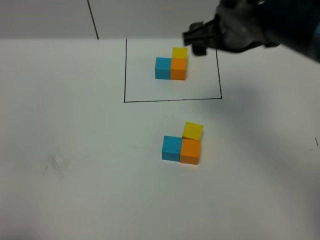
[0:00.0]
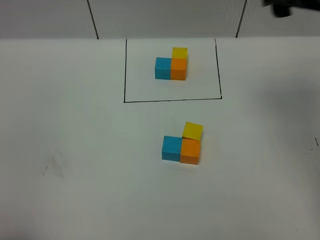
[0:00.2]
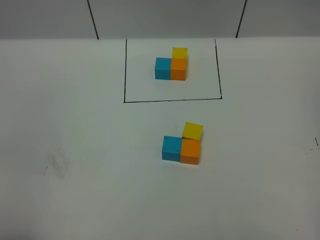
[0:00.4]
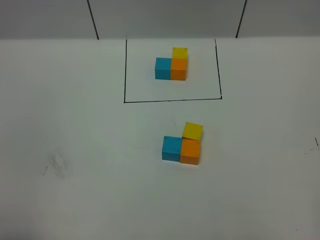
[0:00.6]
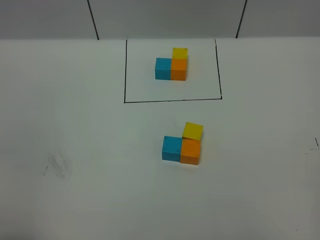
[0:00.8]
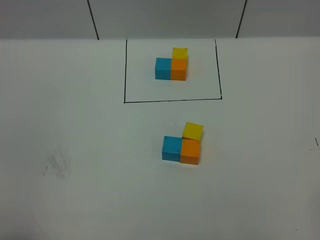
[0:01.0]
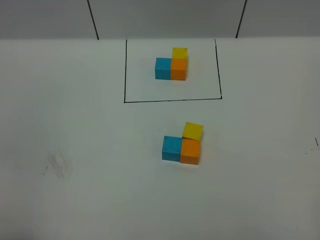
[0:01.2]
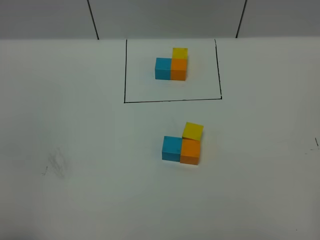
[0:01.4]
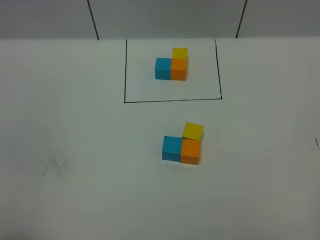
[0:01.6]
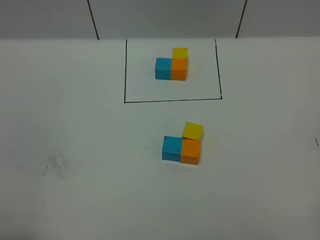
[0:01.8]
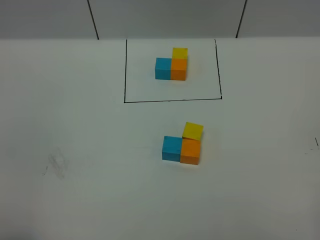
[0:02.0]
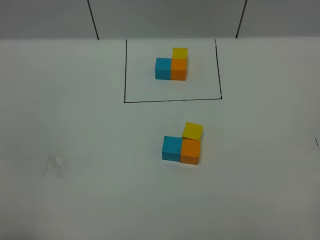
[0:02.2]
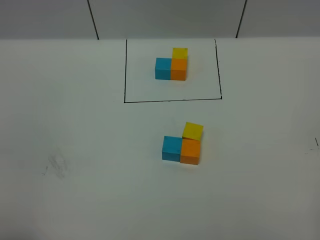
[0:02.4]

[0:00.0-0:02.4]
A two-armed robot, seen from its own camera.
Task of the whole recording: According to the building block template in front, assemble the scattered blocks together.
0:00.0 to 0:01.2: The right gripper shifts some 40 cm backward and to the right.

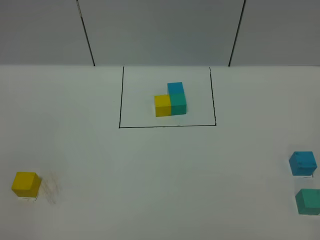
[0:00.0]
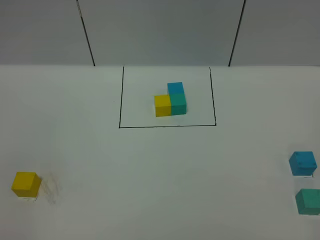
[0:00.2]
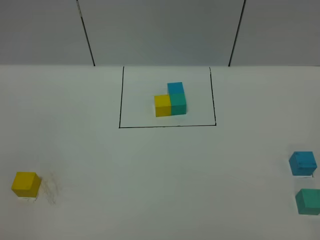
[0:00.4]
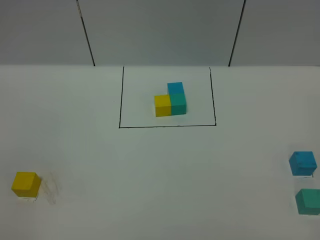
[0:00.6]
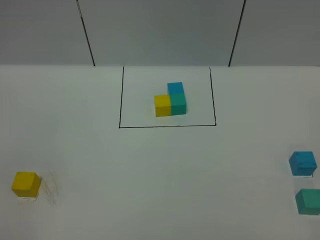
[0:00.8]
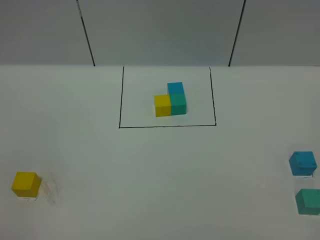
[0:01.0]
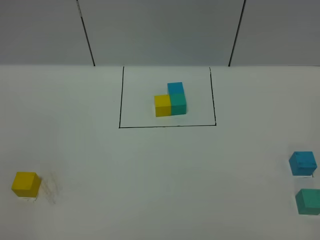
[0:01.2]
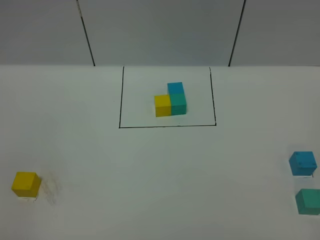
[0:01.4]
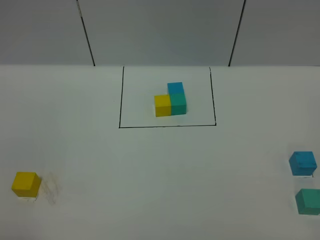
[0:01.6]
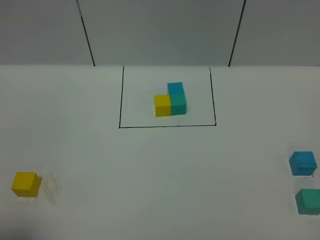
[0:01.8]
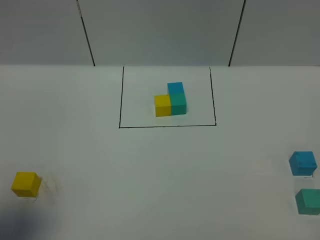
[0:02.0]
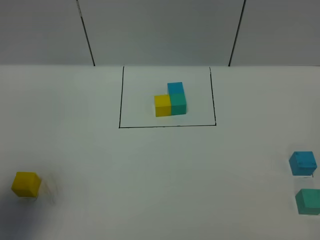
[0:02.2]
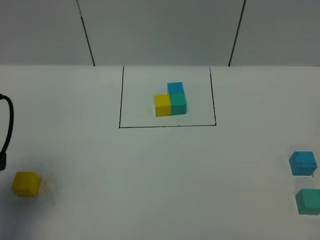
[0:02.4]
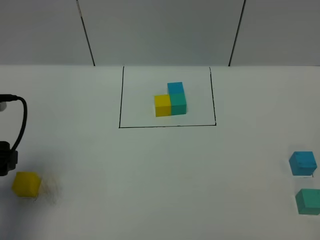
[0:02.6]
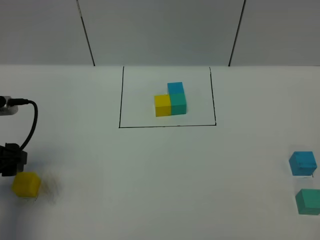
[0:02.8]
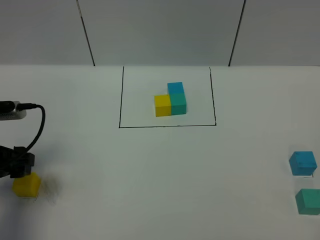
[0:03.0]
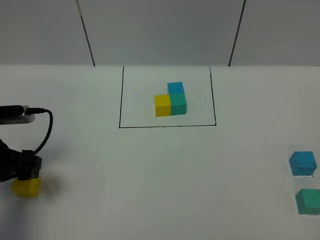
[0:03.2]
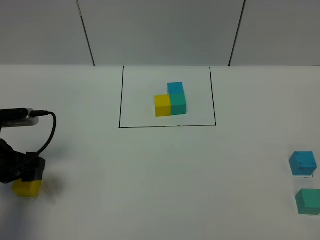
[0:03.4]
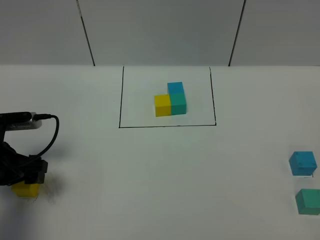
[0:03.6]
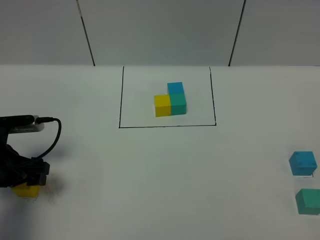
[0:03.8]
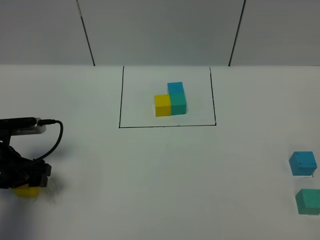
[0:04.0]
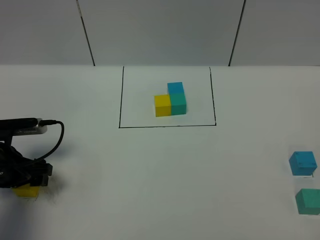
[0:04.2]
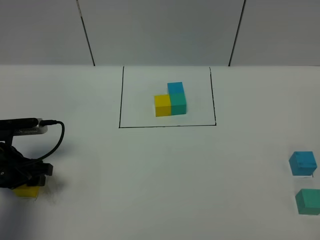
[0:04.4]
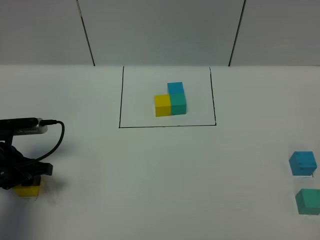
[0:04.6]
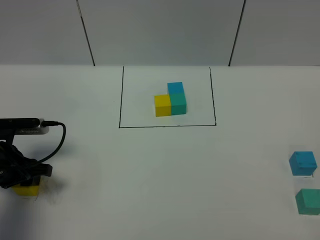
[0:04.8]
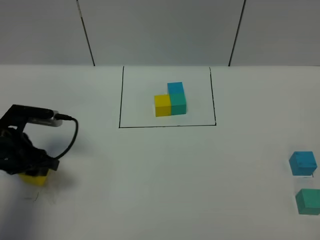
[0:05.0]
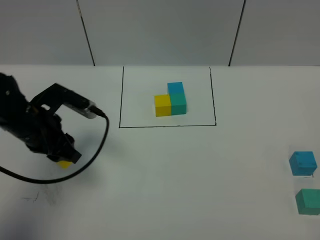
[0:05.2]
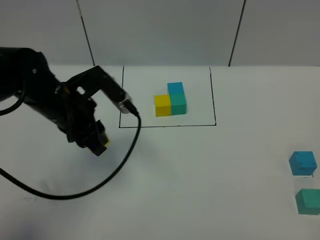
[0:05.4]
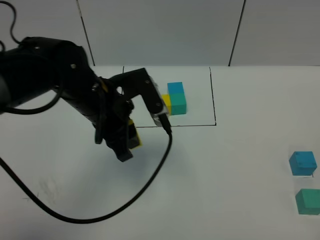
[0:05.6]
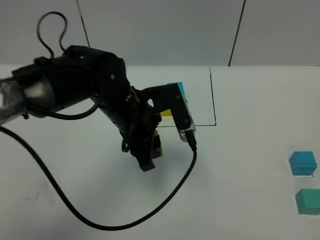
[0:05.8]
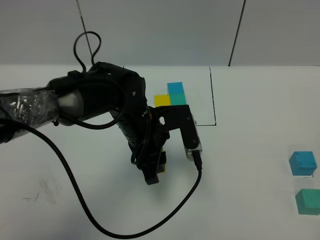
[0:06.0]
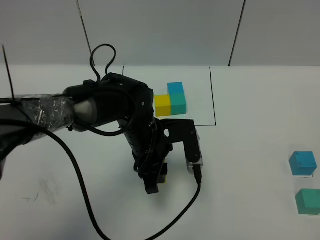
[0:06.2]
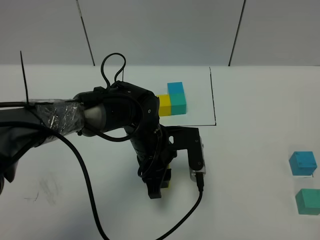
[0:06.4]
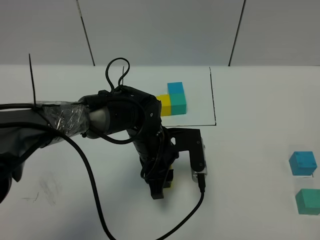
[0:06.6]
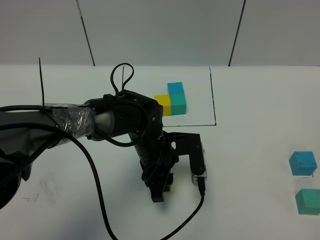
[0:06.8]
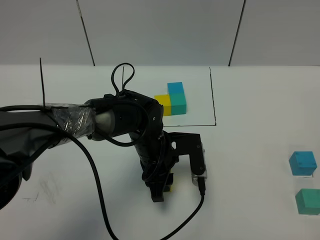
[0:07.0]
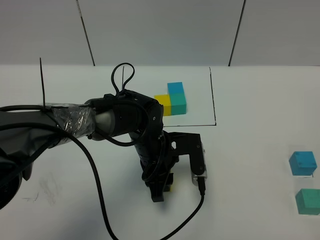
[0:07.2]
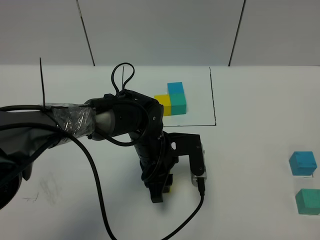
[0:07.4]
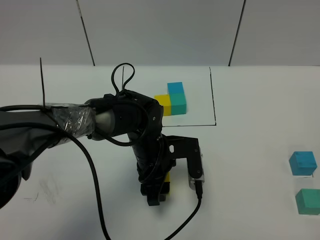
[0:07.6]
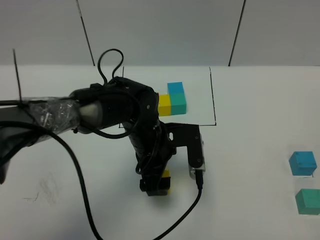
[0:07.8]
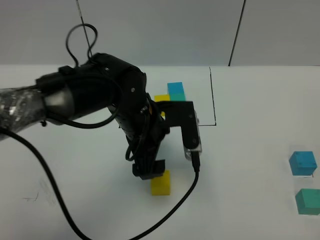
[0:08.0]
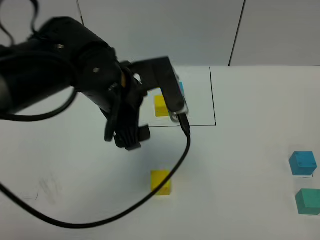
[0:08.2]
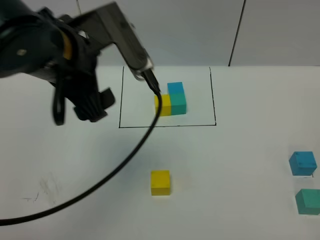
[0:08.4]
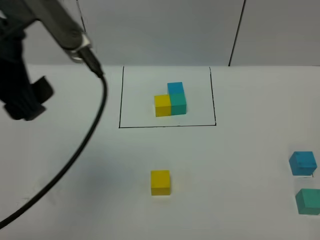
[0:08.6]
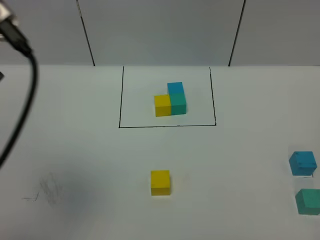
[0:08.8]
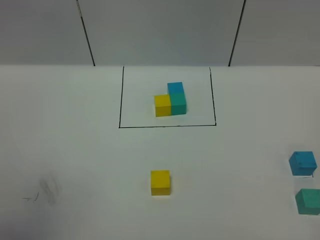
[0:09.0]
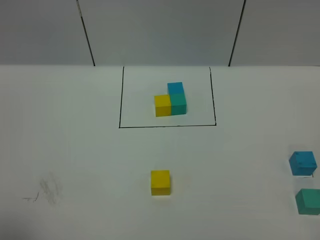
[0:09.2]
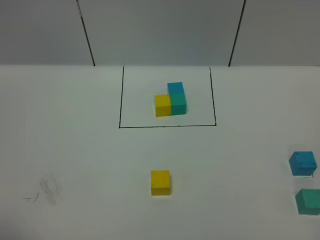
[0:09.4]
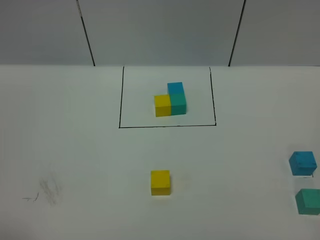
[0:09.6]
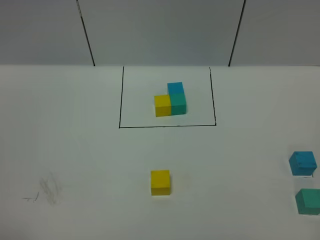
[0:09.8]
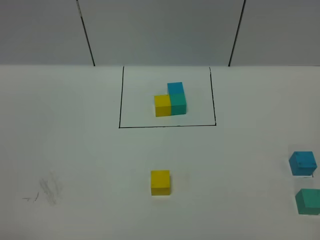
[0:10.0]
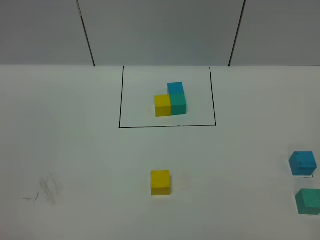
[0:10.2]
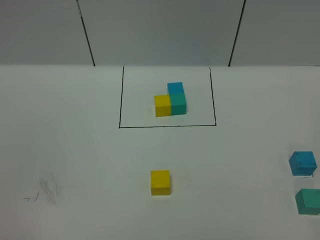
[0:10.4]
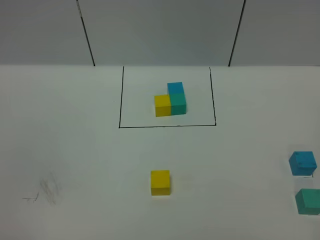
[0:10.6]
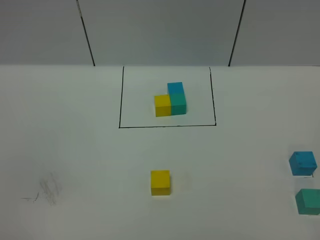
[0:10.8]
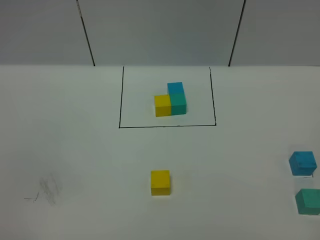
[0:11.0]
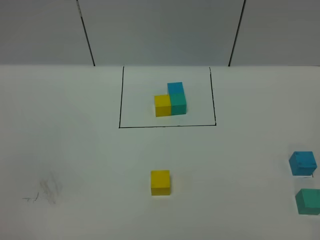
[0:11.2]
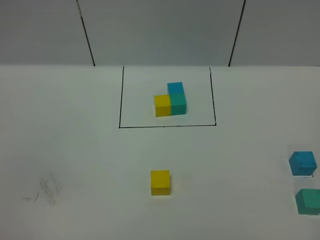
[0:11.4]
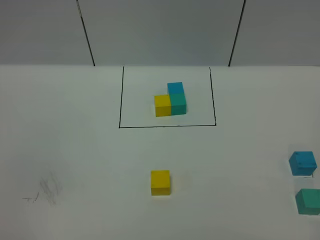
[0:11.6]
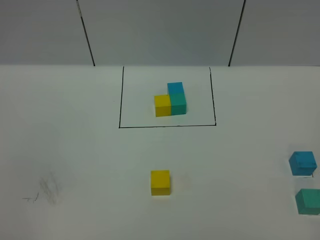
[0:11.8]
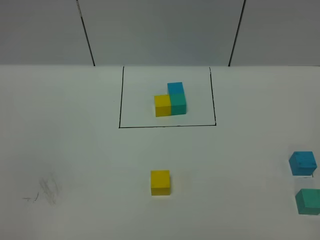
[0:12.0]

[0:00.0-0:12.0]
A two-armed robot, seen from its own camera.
Task of the whole recording: According to the building block template in front, assemble the scattered blocks together.
Step, 0:02.2 to 0:07.6: Put the yellow cube in the center of the table.
0:01.6 to 0:03.0: The left gripper shifts approximately 25 cm forward and downward.
0:03.0 to 0:04.4: The left gripper goes about 5 cm downward.
0:04.4 to 0:06.0: The left gripper is displaced to the right by roughly 25 cm, and closes its fingers.
0:06.0 to 0:07.6: The left gripper travels downward by about 5 cm, and opens up.
0:07.6 to 0:09.0: The left gripper travels upward, to the left and backward by approximately 50 cm, and opens up.
0:09.0 to 0:10.4: The left gripper travels downward and backward by roughly 20 cm.

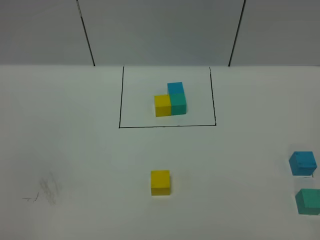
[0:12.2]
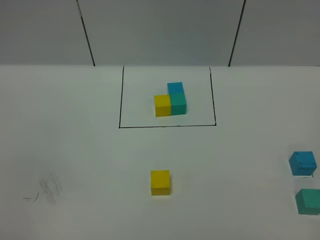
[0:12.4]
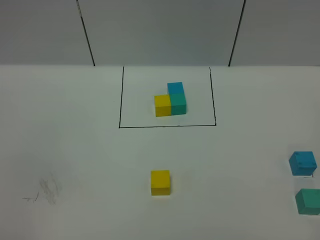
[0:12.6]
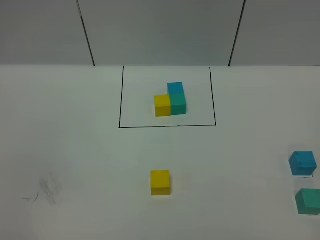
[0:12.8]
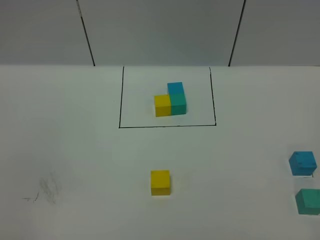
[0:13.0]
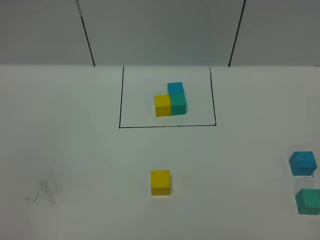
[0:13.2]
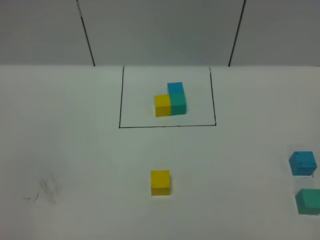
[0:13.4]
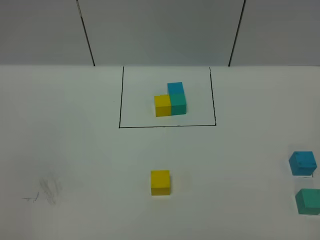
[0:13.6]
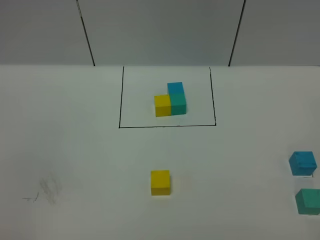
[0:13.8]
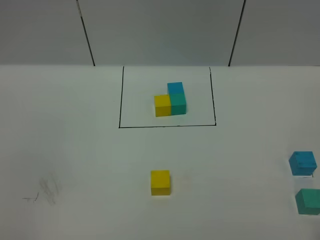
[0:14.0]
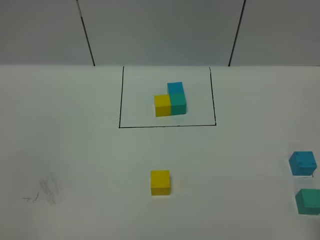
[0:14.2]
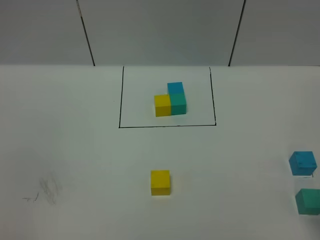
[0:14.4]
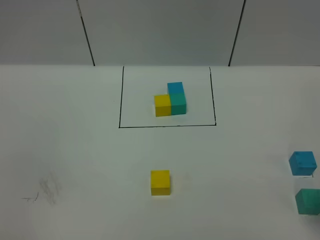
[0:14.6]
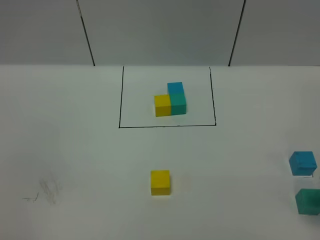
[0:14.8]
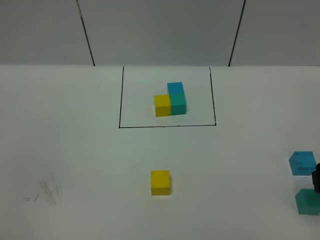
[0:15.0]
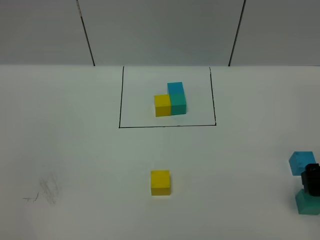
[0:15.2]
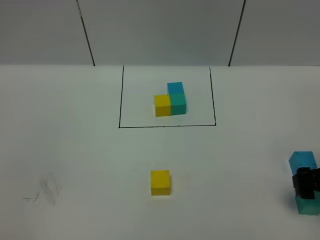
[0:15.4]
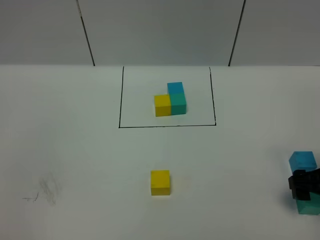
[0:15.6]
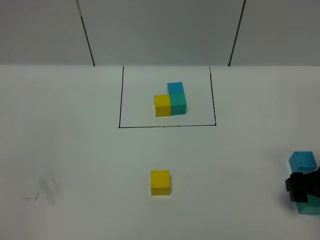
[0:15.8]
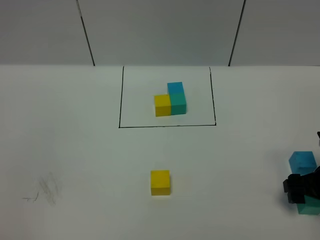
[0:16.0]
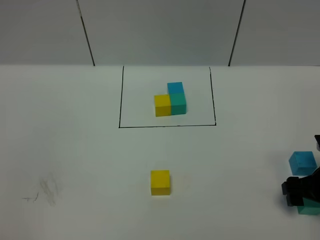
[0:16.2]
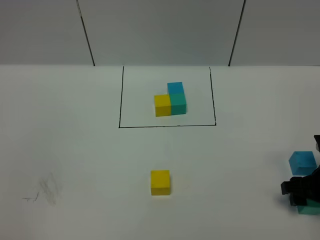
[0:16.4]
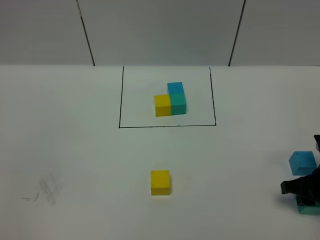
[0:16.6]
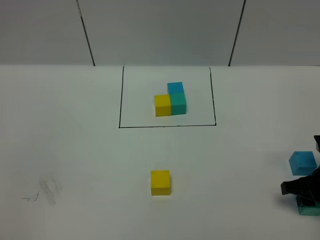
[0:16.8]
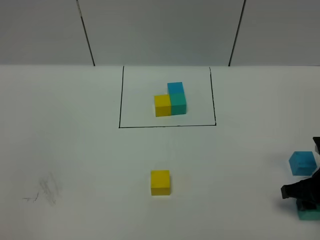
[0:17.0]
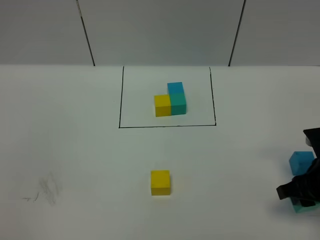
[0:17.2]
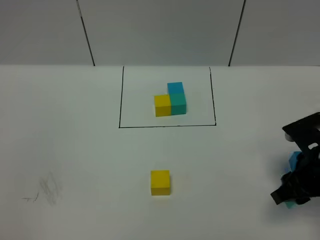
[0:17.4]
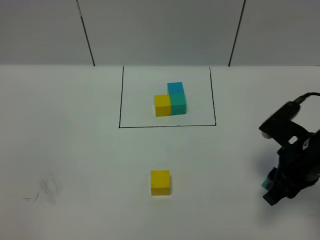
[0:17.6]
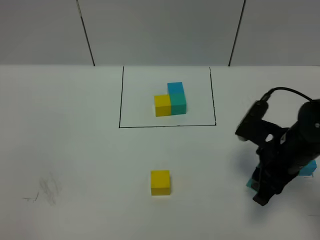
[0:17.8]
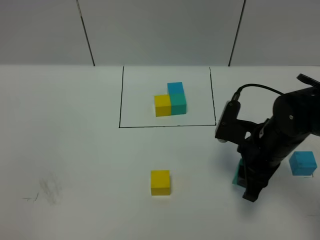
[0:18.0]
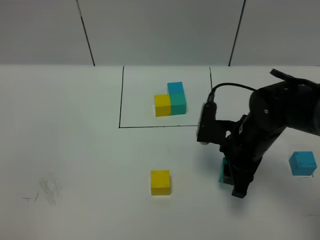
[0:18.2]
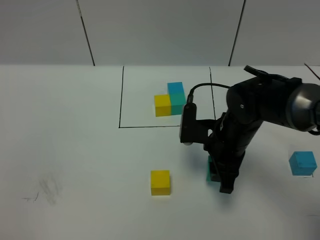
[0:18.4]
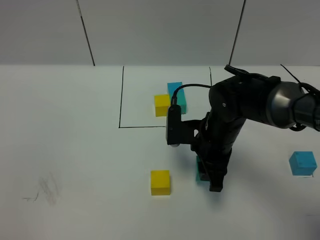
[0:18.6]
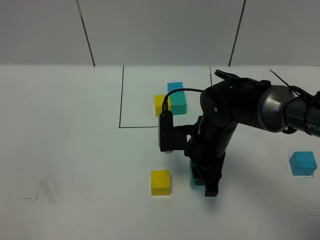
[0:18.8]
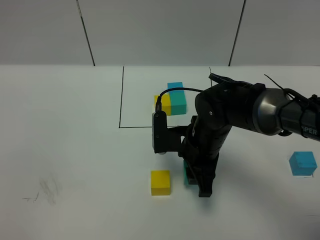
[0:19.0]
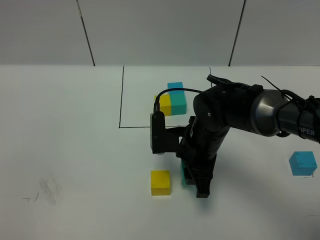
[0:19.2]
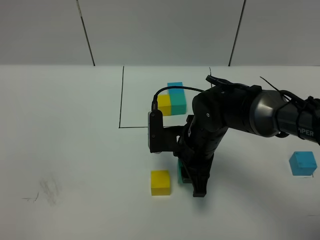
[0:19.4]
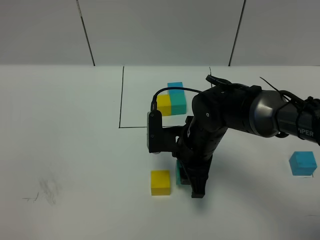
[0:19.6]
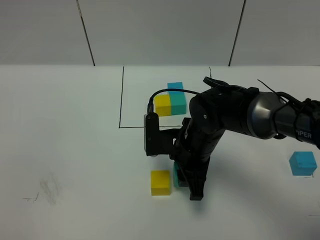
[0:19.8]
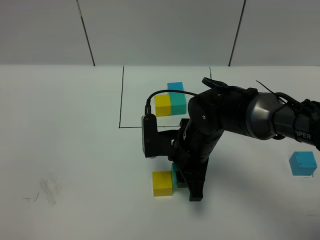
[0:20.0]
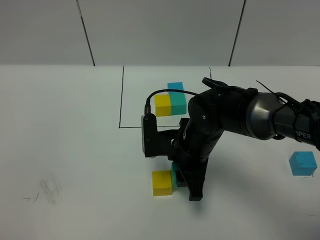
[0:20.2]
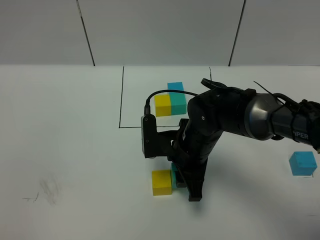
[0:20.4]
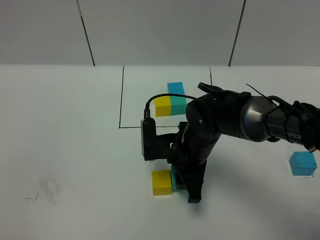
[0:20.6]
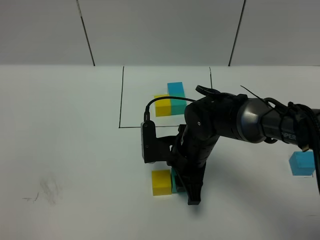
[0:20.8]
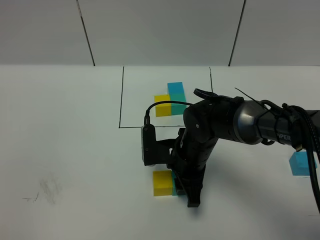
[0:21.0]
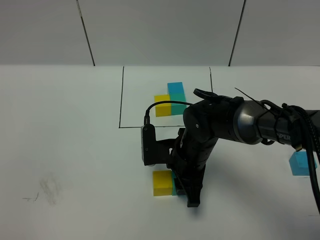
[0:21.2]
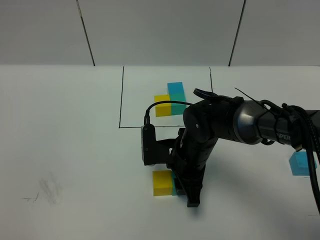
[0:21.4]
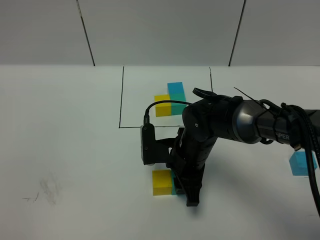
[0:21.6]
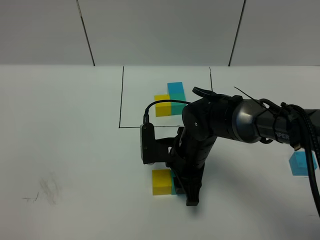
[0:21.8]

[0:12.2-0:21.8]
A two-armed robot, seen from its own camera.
Task of the whole recording: According to the building block template in front, assemble the scattered blocks together.
0:13.8 to 0:15.4: The right gripper goes roughly 25 cm forward and downward.
0:15.4 to 0:17.0: The right gripper closes.
0:17.0 to 0:18.6: The right gripper is displaced to the left and forward by some 20 cm.
0:18.6 to 0:21.8: The grippers stay close to where they were, moving slightly.
